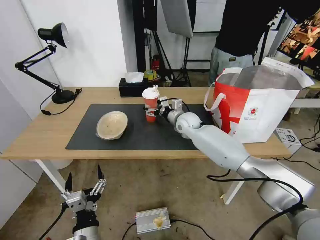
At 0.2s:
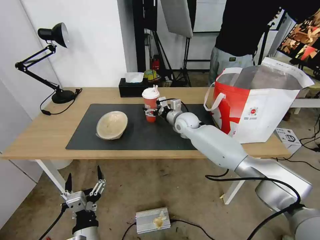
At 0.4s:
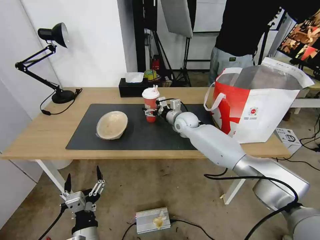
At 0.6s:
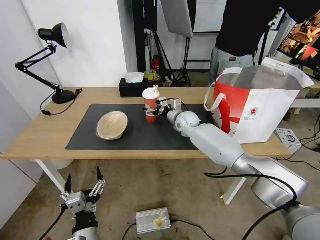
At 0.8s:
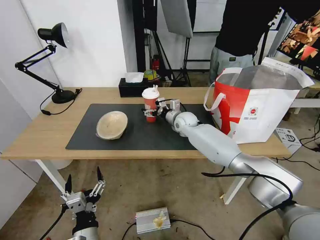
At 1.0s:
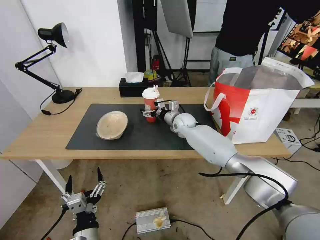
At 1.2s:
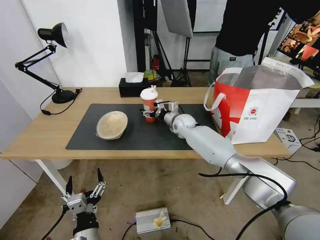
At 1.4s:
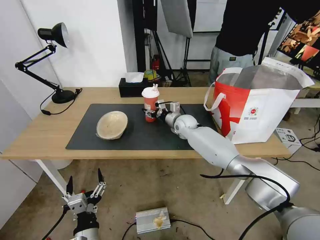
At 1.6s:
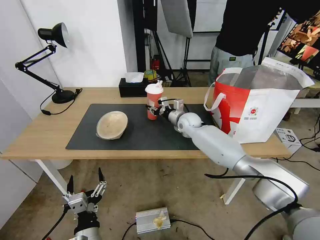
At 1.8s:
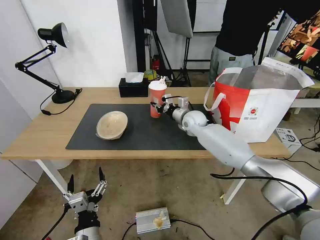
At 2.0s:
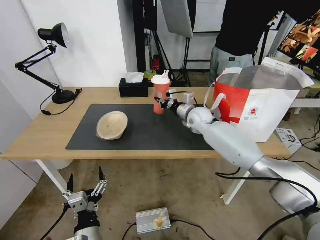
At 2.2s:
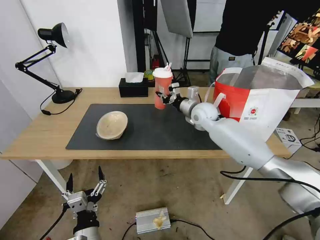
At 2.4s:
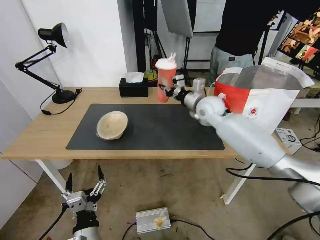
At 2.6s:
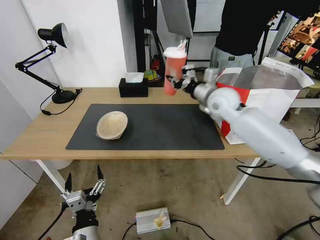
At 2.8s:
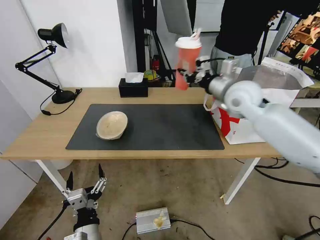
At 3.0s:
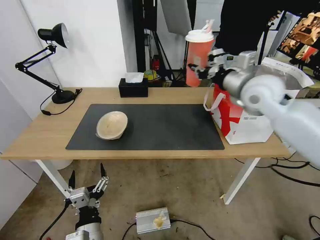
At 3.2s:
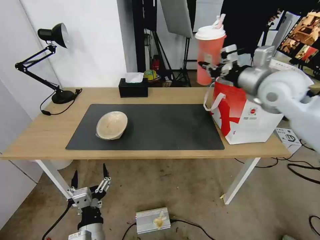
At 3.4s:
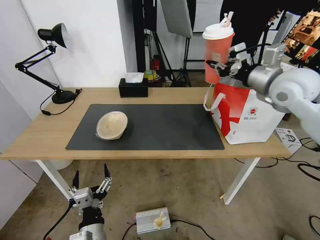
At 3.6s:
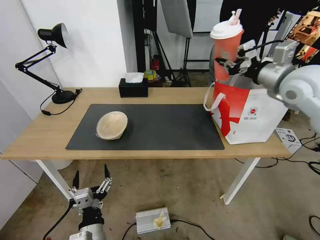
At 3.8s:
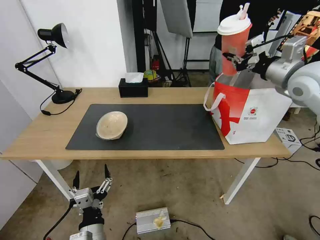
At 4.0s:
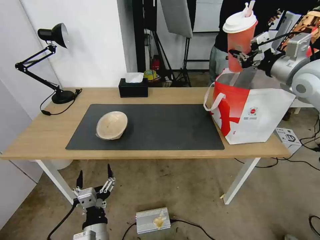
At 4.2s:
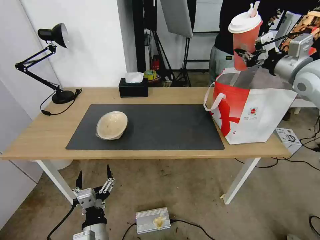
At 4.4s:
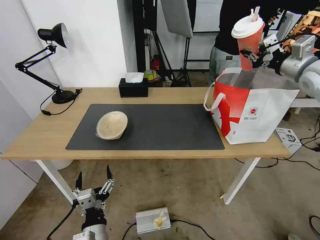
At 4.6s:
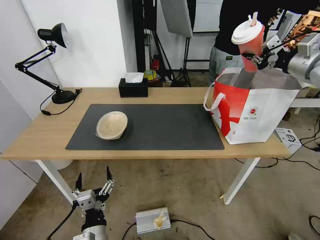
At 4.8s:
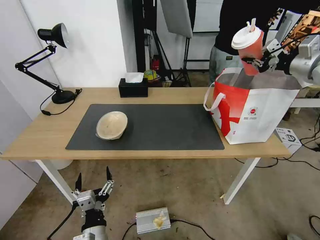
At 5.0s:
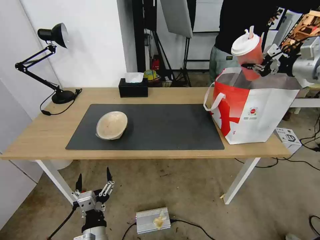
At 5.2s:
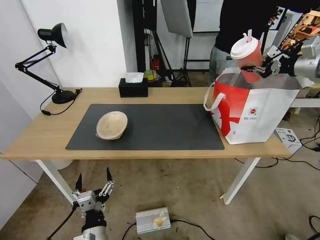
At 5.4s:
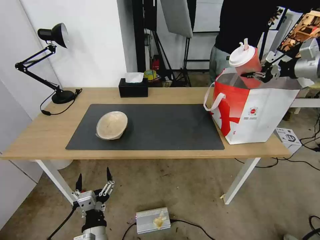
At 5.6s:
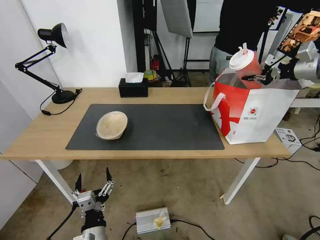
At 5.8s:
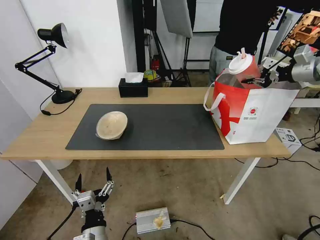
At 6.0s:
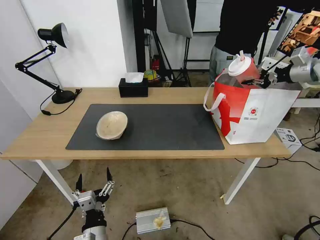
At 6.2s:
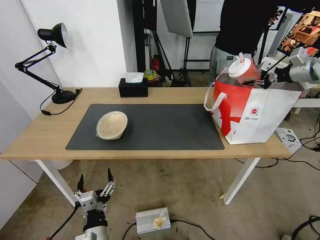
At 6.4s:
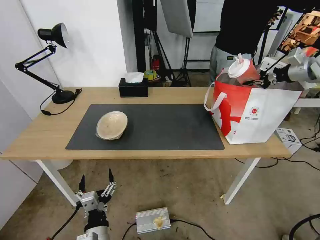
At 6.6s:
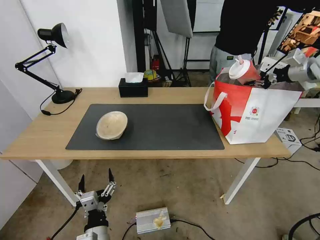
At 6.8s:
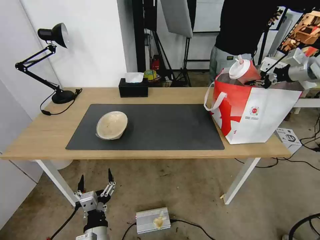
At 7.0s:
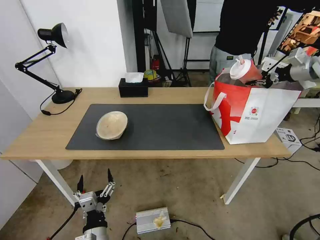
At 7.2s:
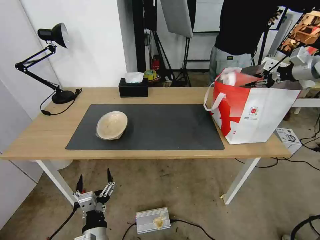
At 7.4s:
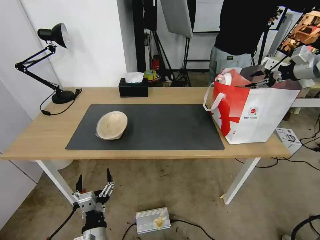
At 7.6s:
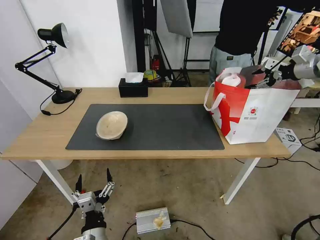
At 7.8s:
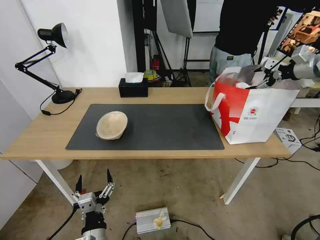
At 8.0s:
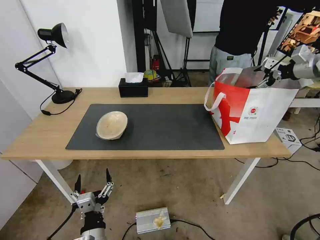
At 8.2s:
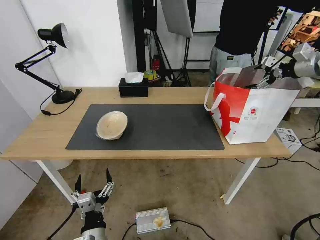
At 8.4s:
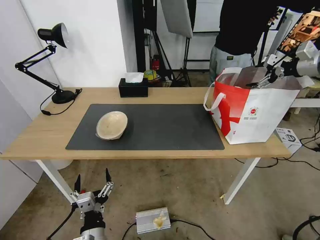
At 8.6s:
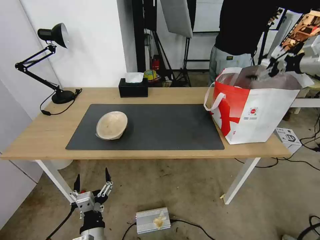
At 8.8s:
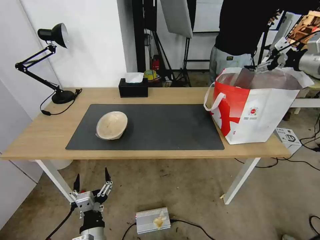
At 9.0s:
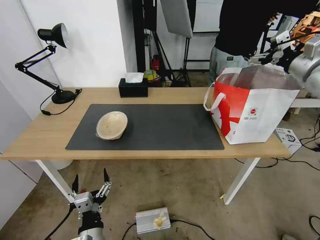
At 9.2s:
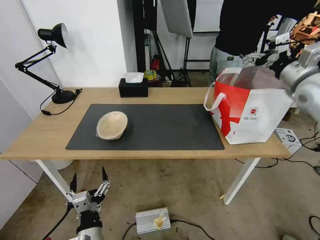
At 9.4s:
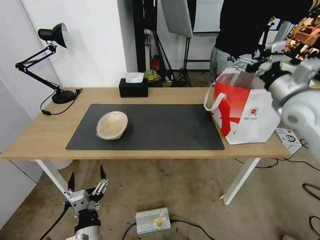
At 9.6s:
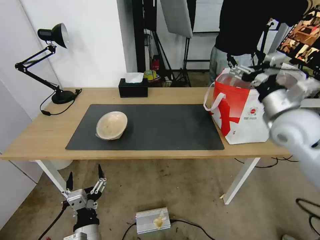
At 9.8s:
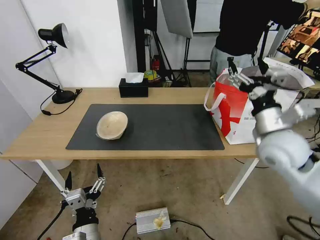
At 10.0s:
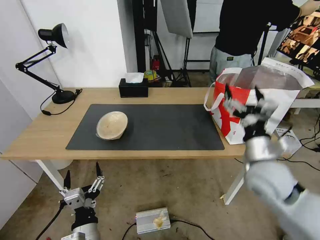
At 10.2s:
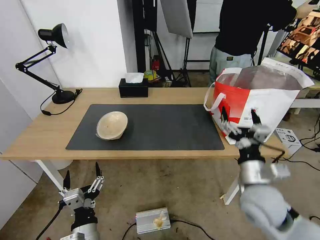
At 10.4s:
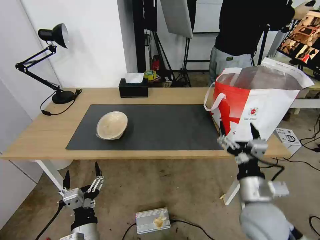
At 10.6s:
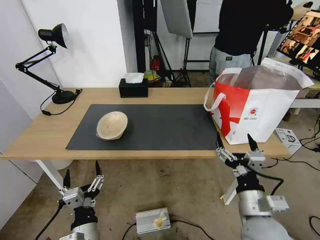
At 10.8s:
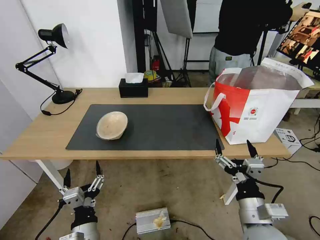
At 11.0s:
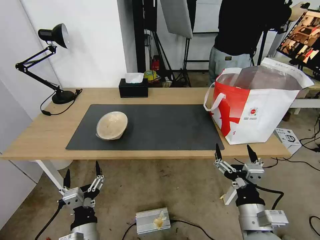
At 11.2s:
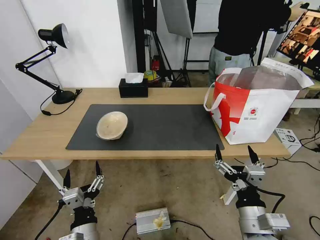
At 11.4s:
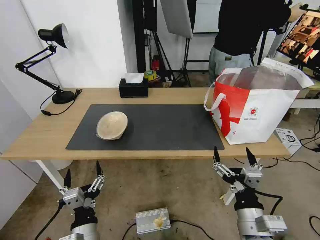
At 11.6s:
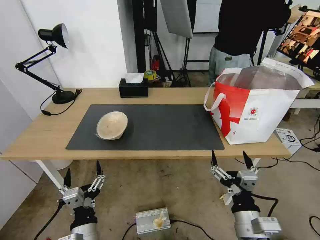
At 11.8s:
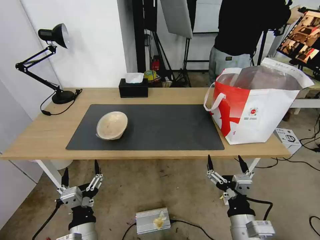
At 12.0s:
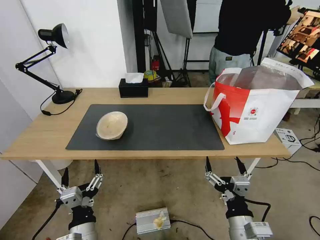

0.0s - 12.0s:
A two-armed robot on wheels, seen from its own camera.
Task of the whole recording: Pick up the trash from the table and place it into the takeout bag.
0.0s - 1.6s: The right gripper closes up.
1.6s - 3.0s: The right gripper heads upward, to the right and backward, covering about 30 cm.
3.0s - 4.4s: The right gripper goes roughly 15 cm to the right.
4.4s - 6.0s: The right gripper shifts some 10 cm to the right and forward.
6.0s - 7.6s: The right gripper opens.
7.6s - 9.0s: The right gripper goes some 10 cm to the left and backward.
9.0s - 10.4s: The right gripper goes approximately 40 cm backward, downward and to the left.
10.4s - 12.0s: The right gripper shifts approximately 10 cm backward.

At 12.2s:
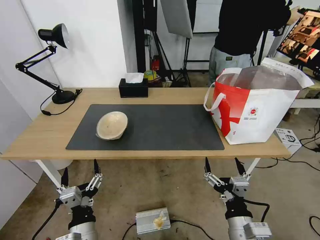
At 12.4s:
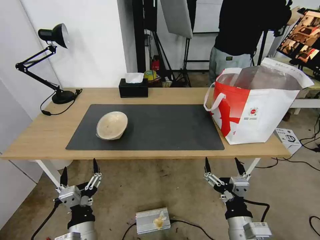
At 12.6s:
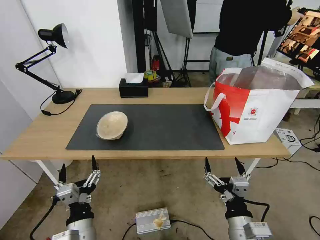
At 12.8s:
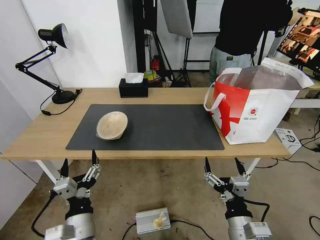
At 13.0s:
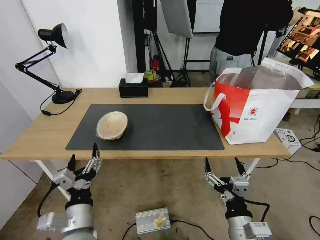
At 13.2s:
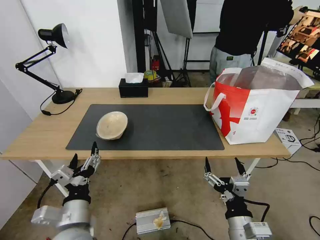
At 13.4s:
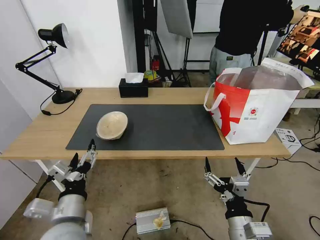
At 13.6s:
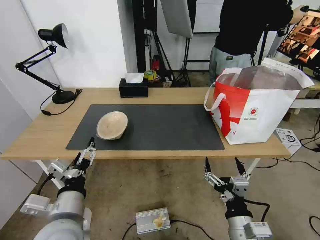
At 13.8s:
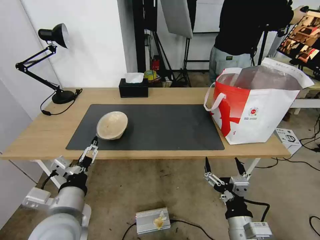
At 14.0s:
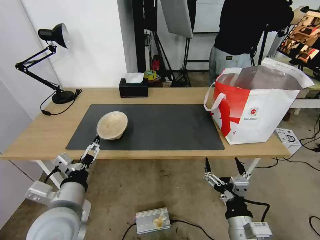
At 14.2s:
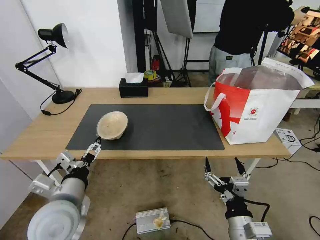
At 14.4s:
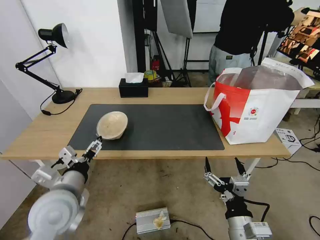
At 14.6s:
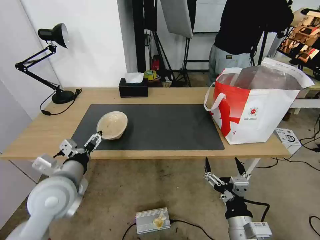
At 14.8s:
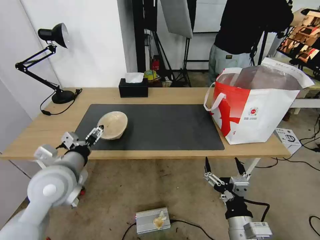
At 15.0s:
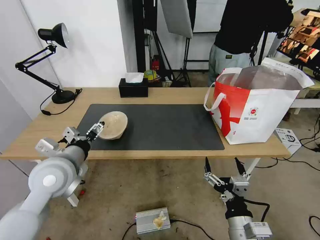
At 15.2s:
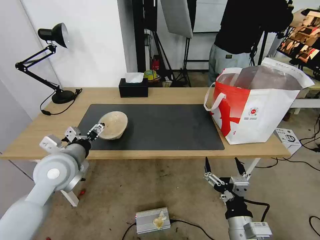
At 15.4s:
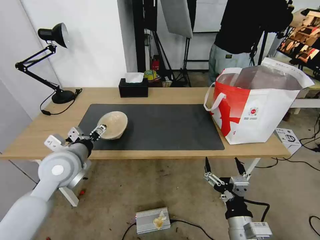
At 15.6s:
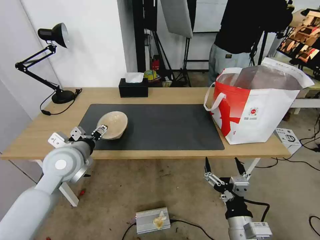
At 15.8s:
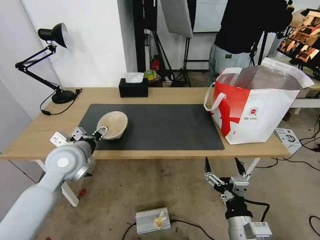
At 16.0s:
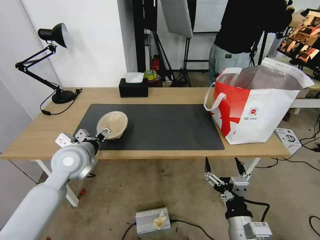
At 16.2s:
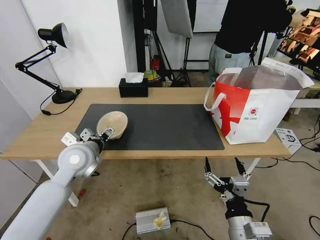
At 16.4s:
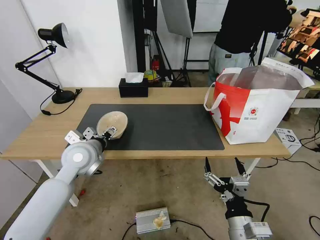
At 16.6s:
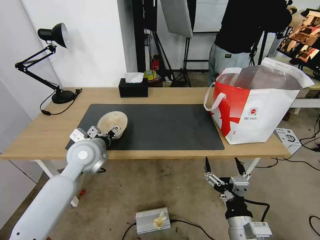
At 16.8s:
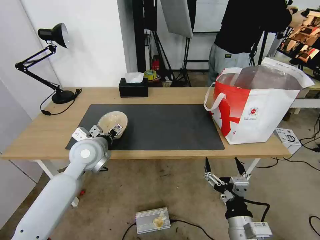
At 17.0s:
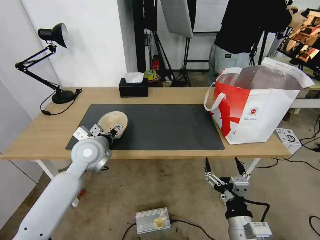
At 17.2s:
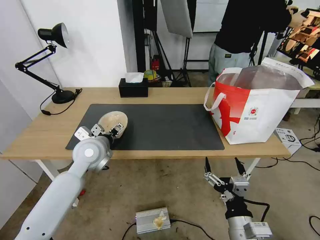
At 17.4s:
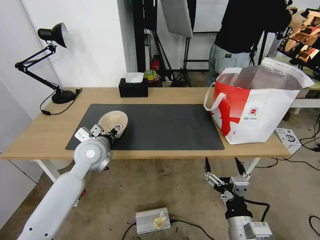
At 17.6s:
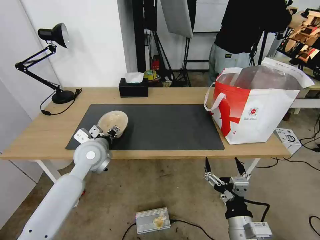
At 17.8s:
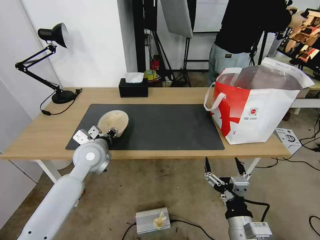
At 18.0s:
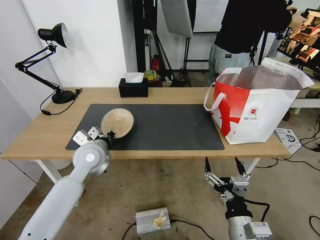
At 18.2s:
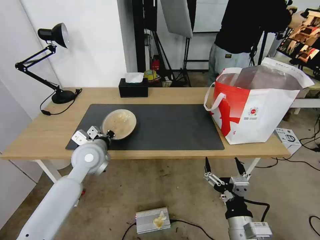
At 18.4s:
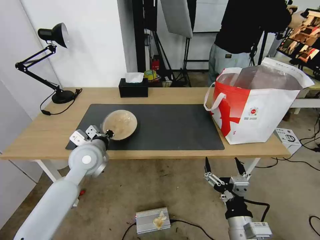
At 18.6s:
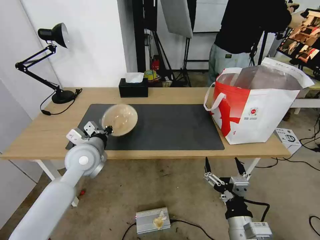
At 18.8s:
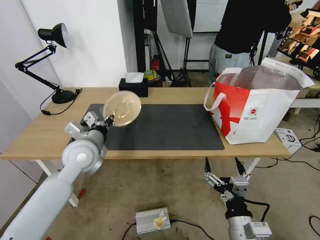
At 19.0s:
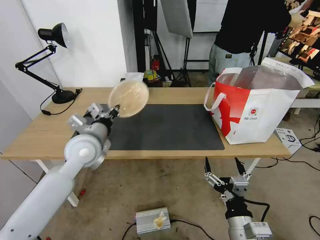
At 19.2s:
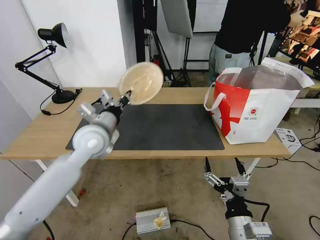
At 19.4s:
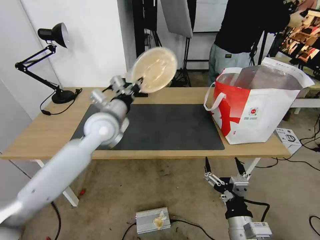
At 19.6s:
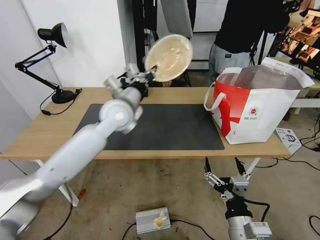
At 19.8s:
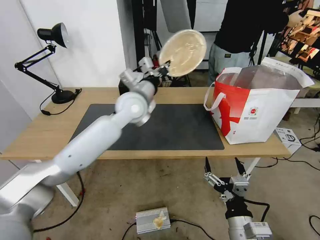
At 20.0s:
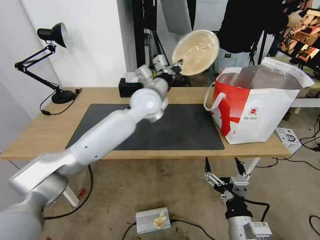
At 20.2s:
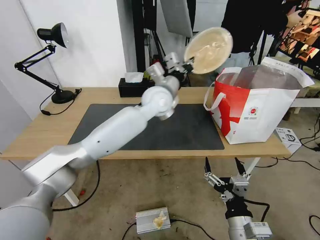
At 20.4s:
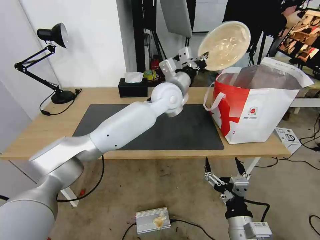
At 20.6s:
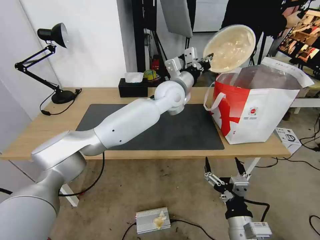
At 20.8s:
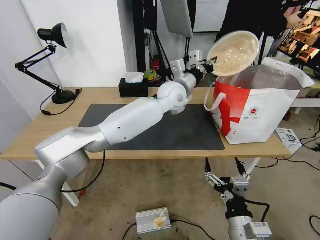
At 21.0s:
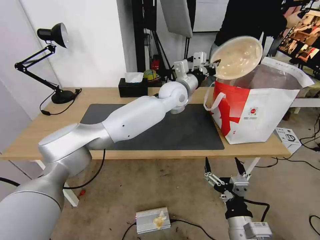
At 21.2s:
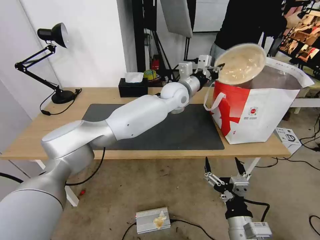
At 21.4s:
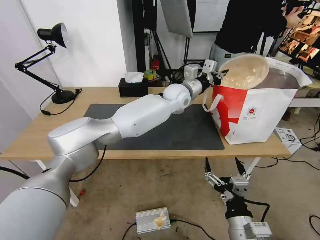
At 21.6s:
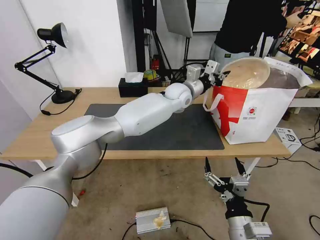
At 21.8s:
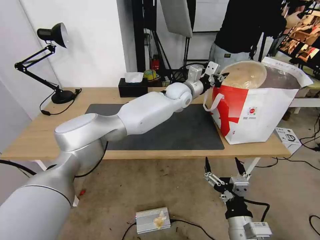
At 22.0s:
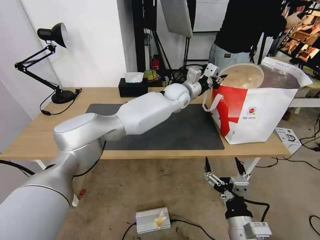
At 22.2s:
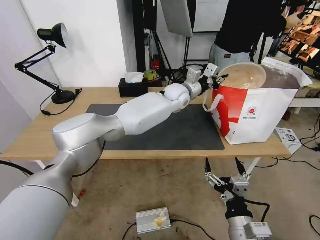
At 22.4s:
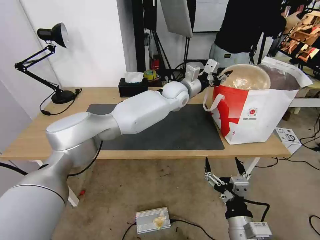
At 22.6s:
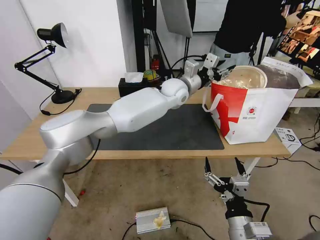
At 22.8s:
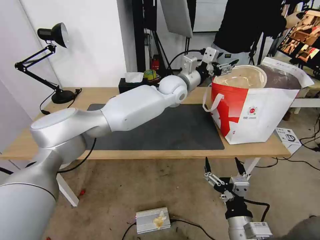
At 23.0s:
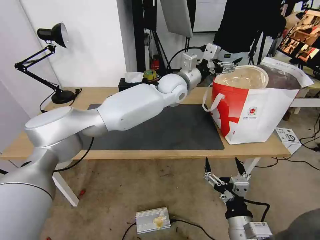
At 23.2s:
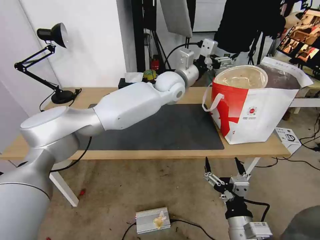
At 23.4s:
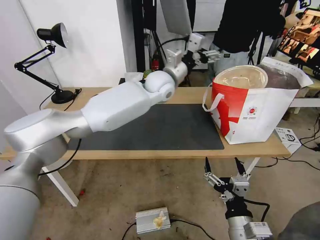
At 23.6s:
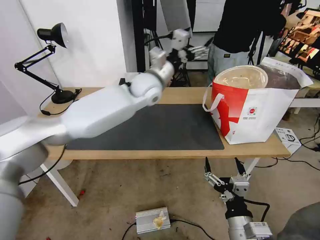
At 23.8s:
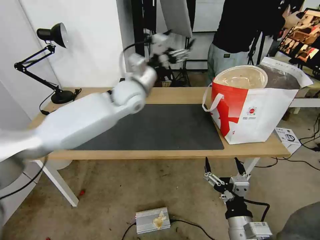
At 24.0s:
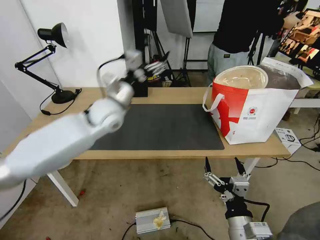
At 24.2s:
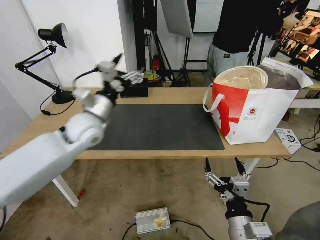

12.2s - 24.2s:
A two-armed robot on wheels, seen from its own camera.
Task of the whole recording: Pick up the trash from the table and place it into the takeout bag.
12.2s - 13.8s: The left gripper travels upward and forward by some 10 cm.
13.8s - 15.2s: The left gripper moves forward, approximately 15 cm.
15.2s - 16.6s: The left gripper is displaced forward by about 5 cm.
16.6s - 18.2s: The left gripper closes its fingers.
18.2s - 19.8s: The left gripper moves to the right, upward and forward, about 20 cm.
19.8s - 21.2s: The left gripper travels to the right and forward by some 15 cm.
21.2s - 22.6s: The left gripper opens.
22.6s - 24.2s: The left gripper is displaced to the left and backward by approximately 30 cm, and opens up.
